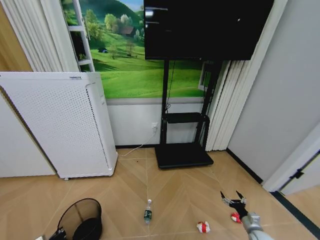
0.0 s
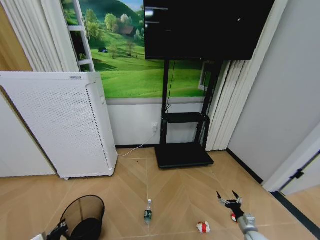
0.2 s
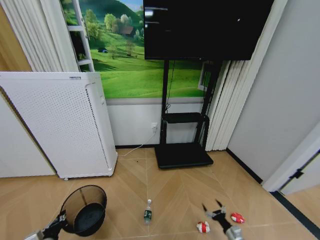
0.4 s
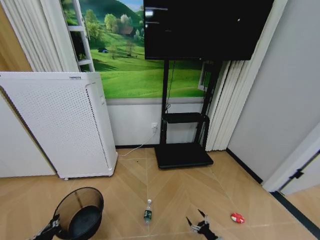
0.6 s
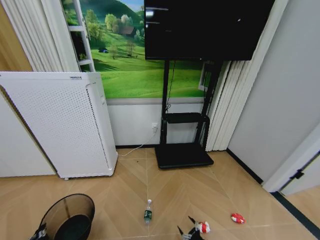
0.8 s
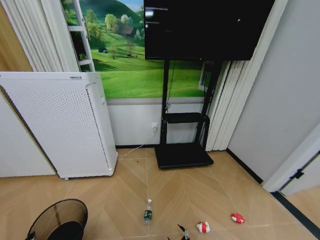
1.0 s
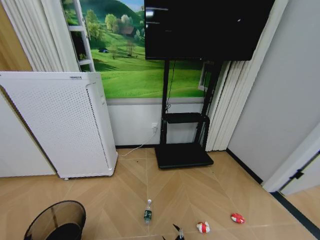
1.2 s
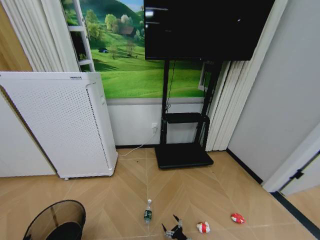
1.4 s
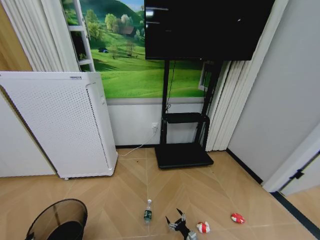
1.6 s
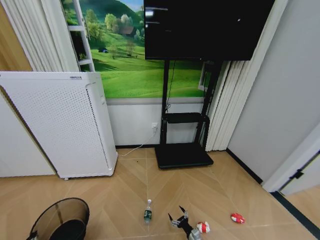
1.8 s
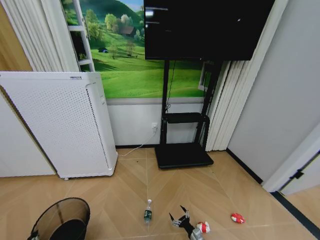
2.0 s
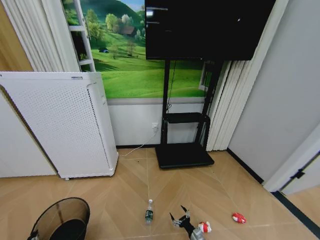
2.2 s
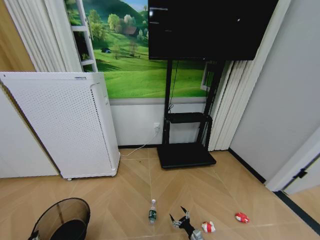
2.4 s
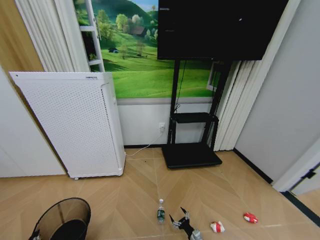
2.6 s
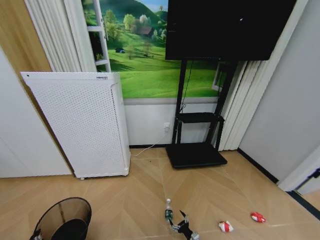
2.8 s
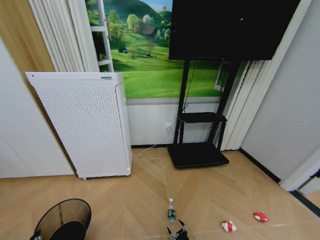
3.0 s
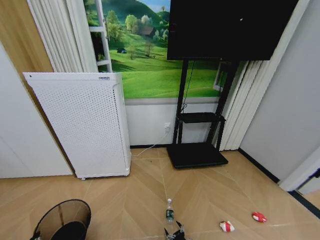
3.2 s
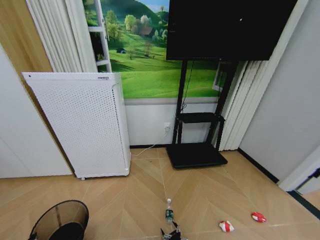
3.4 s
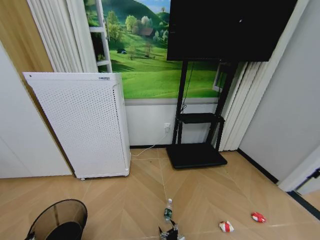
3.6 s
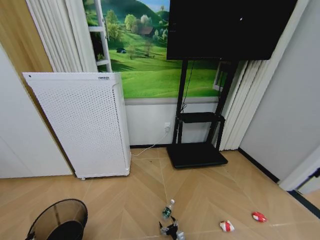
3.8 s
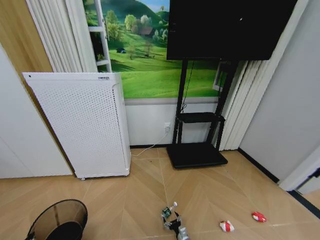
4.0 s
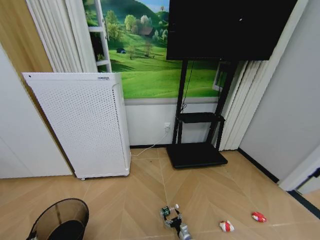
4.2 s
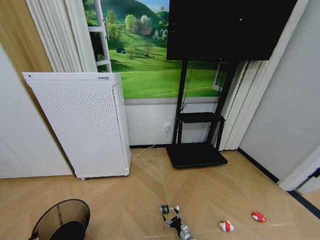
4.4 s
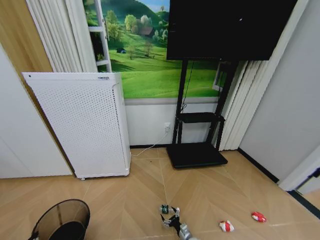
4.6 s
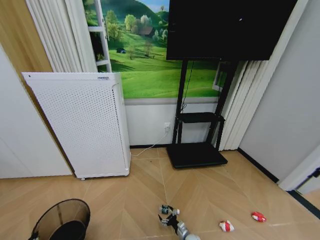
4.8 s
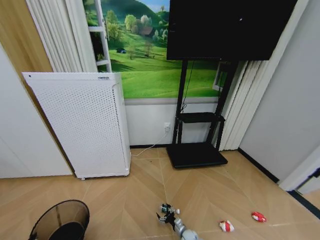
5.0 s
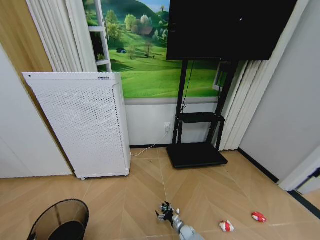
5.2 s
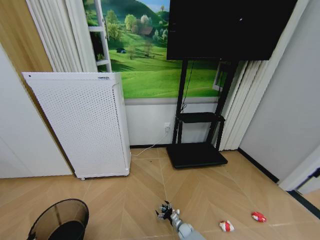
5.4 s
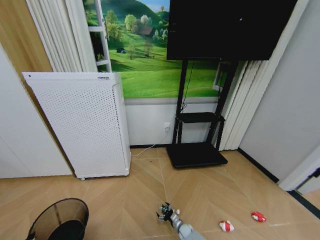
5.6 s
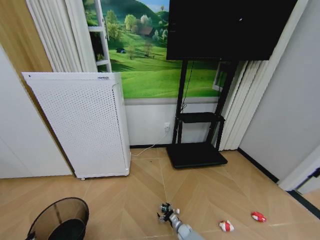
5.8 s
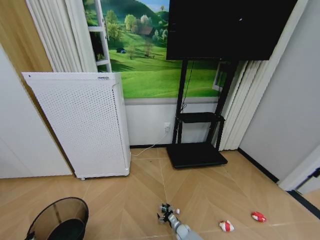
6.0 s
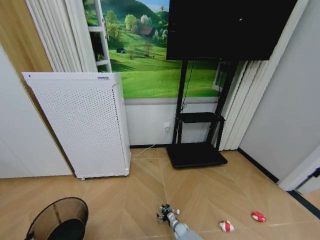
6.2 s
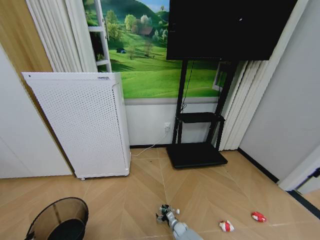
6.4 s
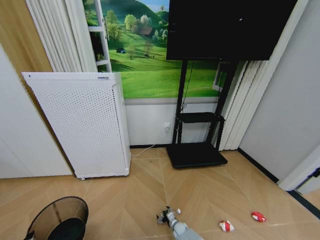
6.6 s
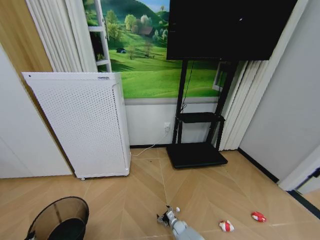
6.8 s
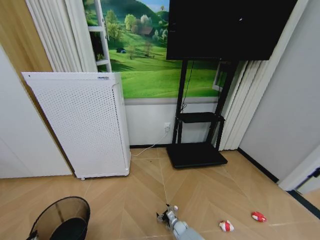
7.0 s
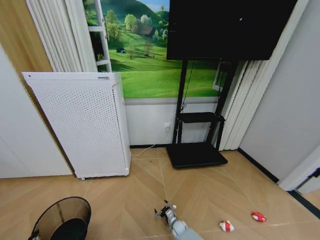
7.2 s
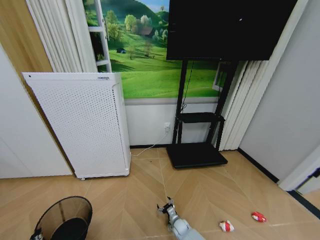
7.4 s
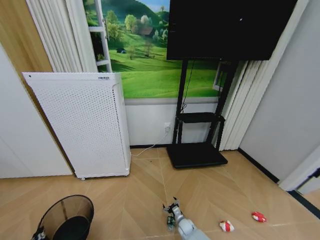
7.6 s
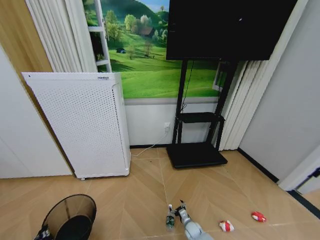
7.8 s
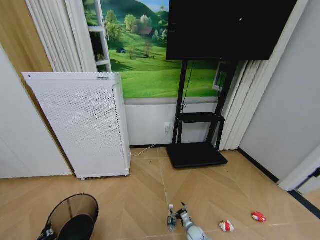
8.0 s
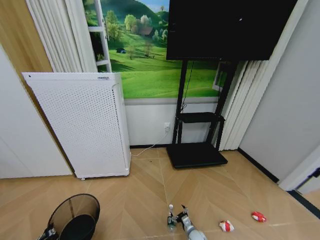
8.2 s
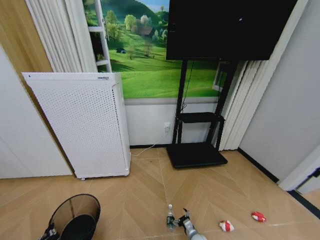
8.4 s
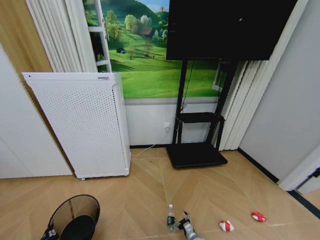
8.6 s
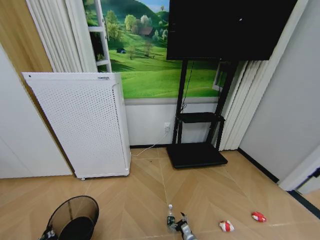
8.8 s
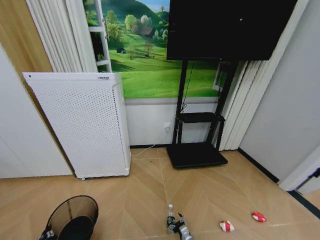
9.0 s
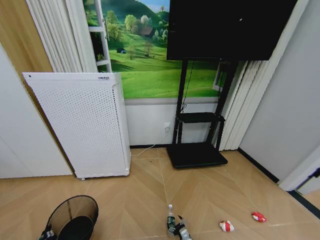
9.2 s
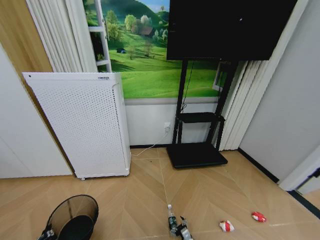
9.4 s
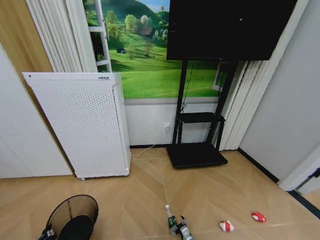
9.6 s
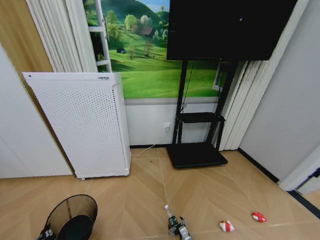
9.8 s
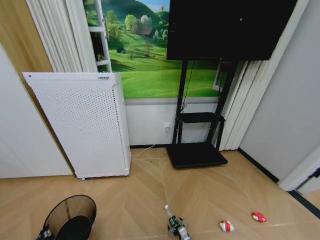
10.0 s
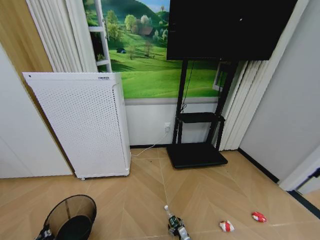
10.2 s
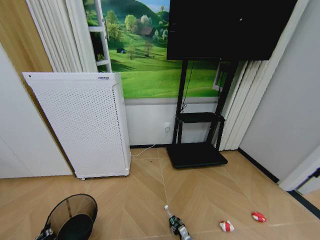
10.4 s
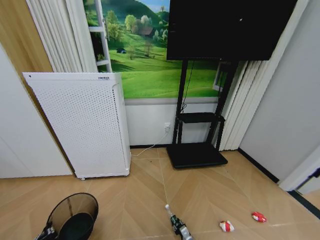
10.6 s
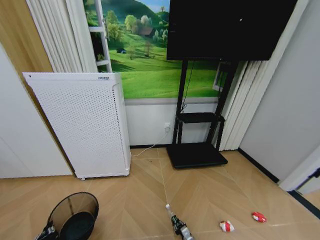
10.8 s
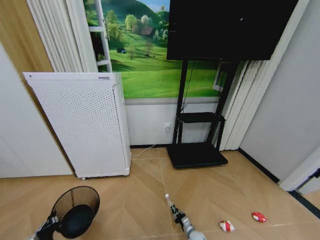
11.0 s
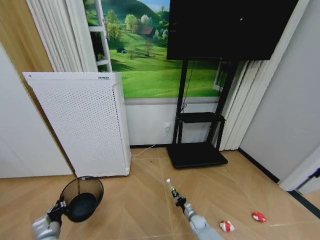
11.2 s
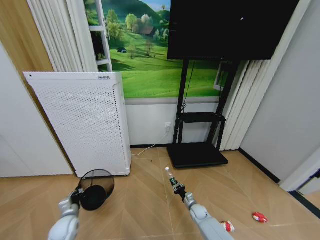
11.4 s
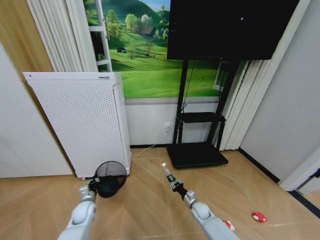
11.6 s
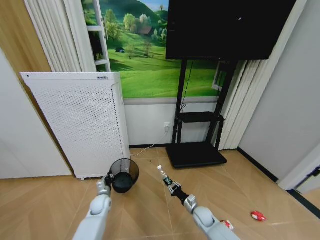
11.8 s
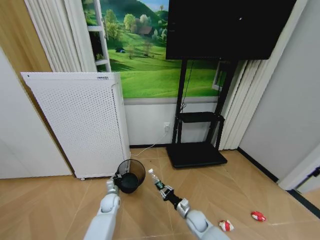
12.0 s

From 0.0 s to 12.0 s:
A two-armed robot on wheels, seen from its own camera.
Task of the whole recording: Pick up the trash bin and place the garbage on the floor into it.
From 0.0 s to 1.6 s: The right gripper goes about 30 cm to the left and downward. The left gripper travels upward and backward by some 15 cm.
From 3.0 s to 4.4 s: The right gripper shifts some 5 cm forward.
From 4.4 s to 6.0 s: The right gripper travels forward by about 5 cm.
From 6.0 s to 7.6 s: The grippers make only small movements.
From 7.6 s to 9.0 s: The right gripper moves backward, roughly 10 cm.
From 10.4 s to 12.0 s: The left gripper travels forward and to the right by roughly 35 cm, while the right gripper is displaced upward and forward by roughly 20 cm, and closes up.

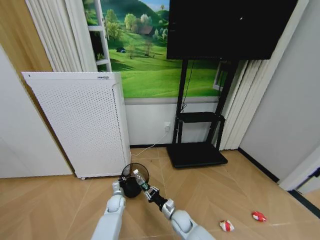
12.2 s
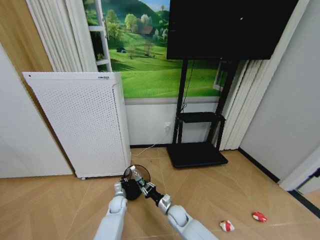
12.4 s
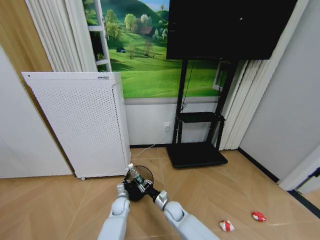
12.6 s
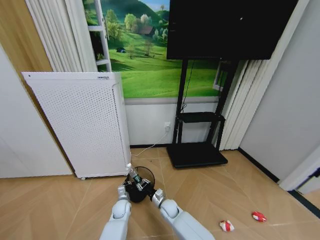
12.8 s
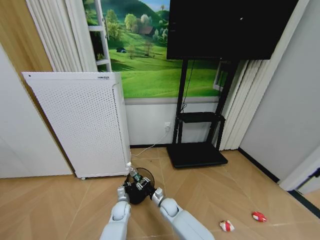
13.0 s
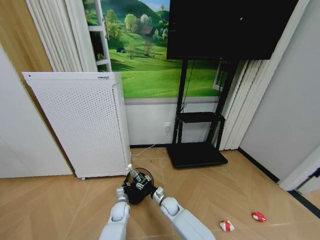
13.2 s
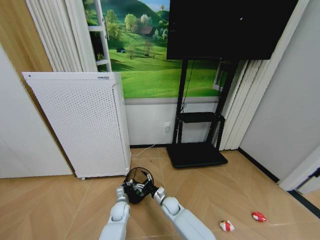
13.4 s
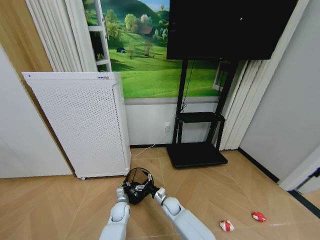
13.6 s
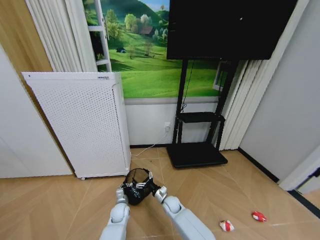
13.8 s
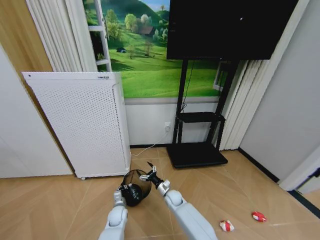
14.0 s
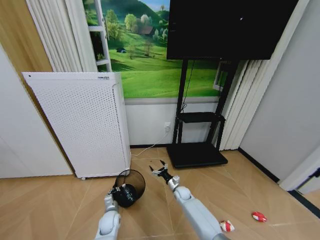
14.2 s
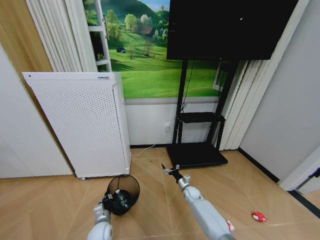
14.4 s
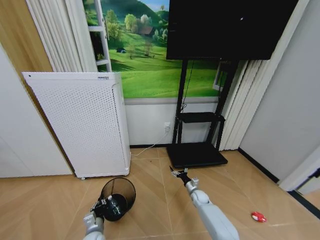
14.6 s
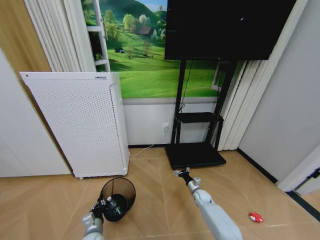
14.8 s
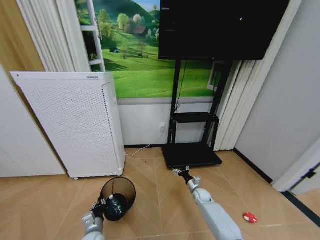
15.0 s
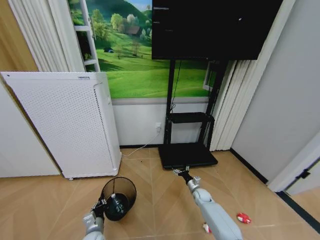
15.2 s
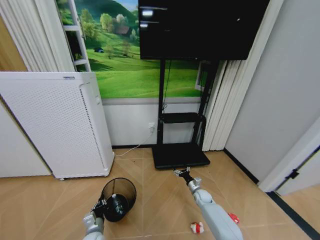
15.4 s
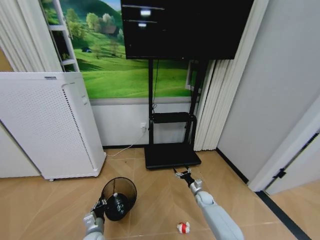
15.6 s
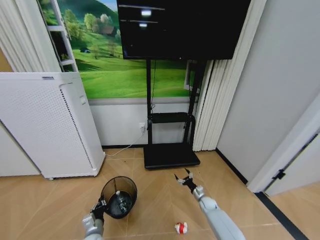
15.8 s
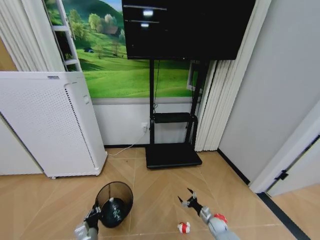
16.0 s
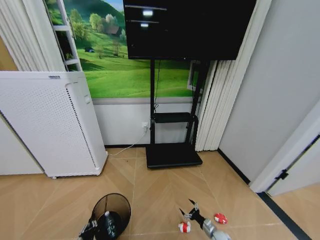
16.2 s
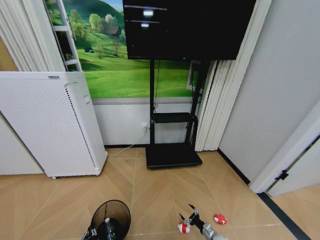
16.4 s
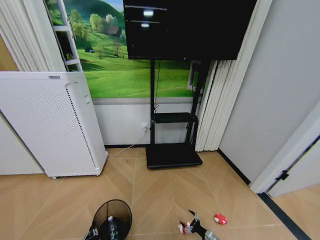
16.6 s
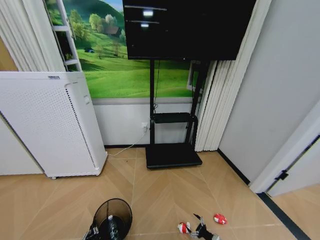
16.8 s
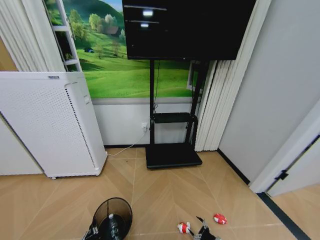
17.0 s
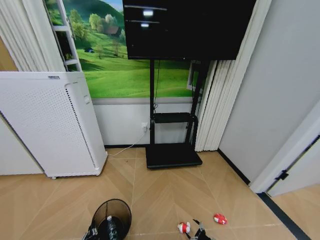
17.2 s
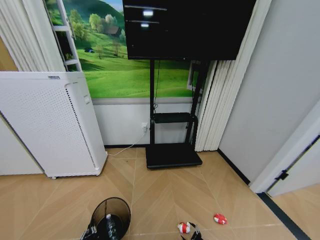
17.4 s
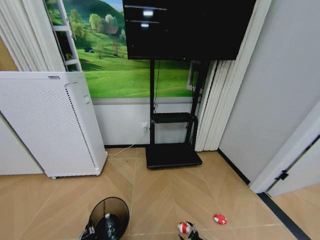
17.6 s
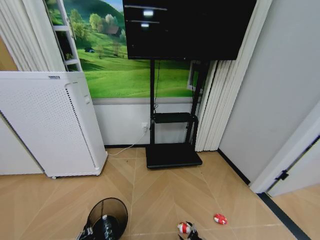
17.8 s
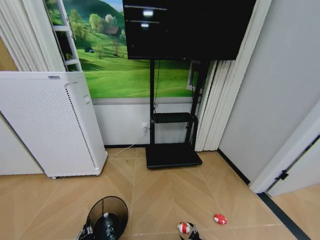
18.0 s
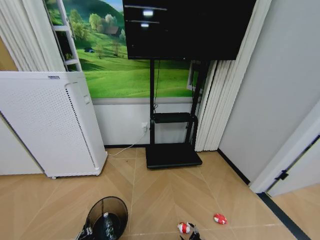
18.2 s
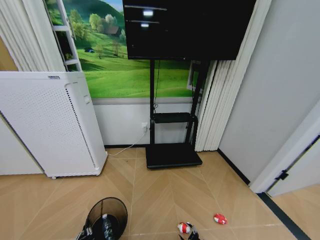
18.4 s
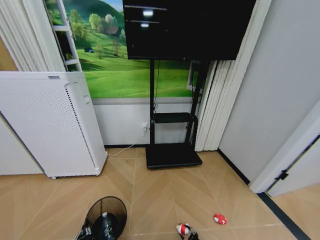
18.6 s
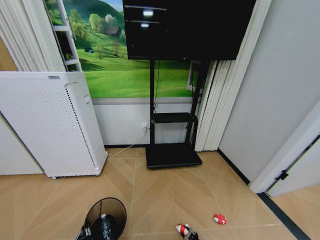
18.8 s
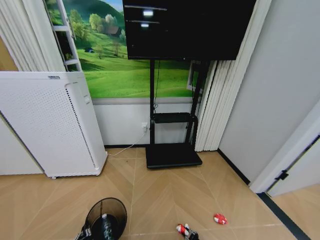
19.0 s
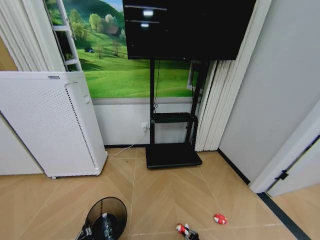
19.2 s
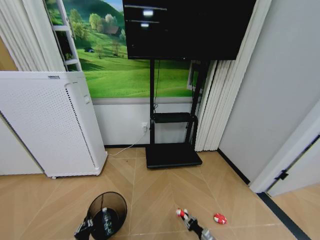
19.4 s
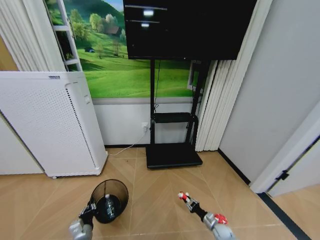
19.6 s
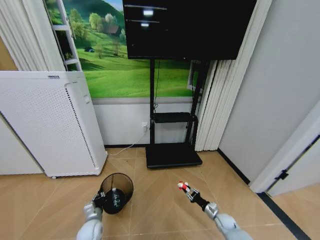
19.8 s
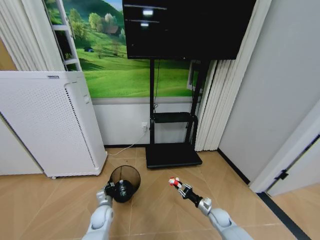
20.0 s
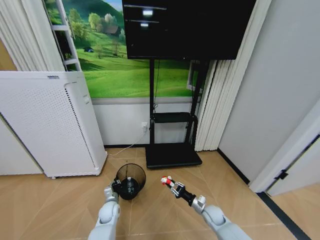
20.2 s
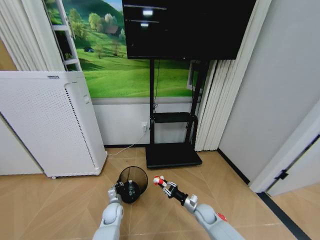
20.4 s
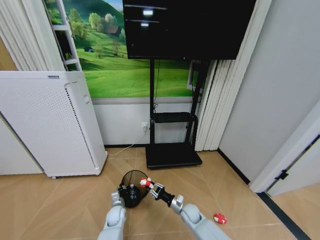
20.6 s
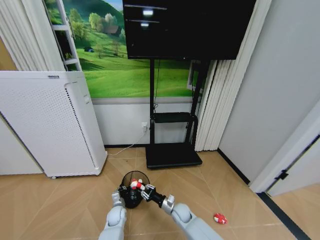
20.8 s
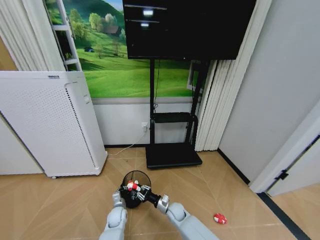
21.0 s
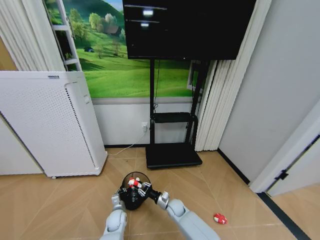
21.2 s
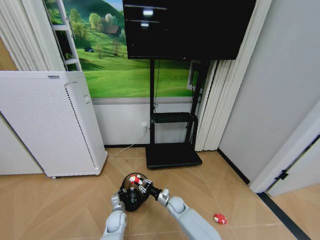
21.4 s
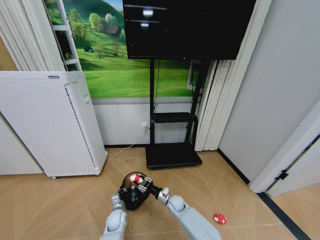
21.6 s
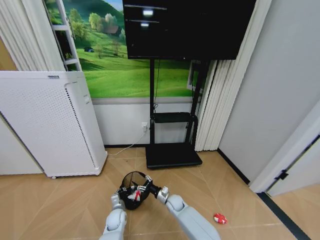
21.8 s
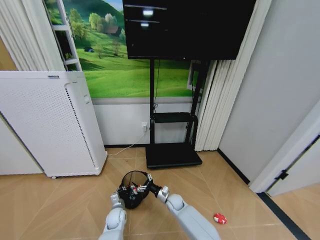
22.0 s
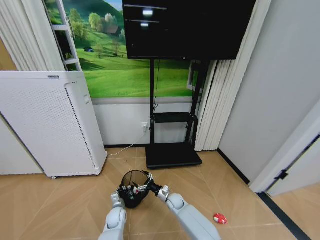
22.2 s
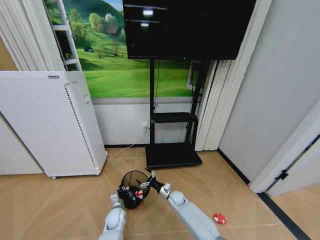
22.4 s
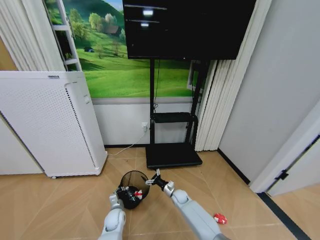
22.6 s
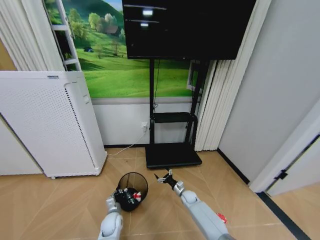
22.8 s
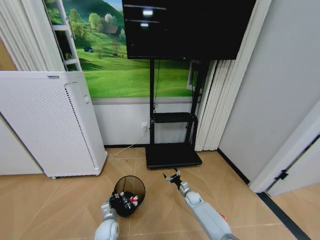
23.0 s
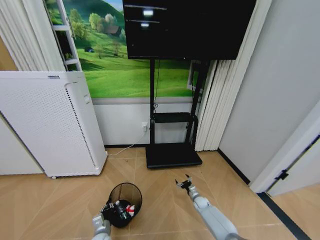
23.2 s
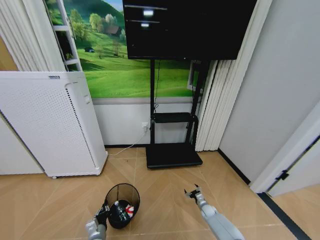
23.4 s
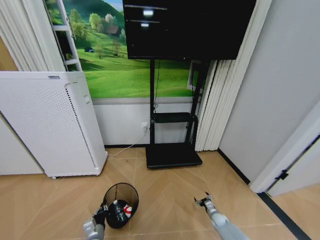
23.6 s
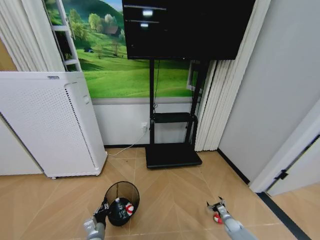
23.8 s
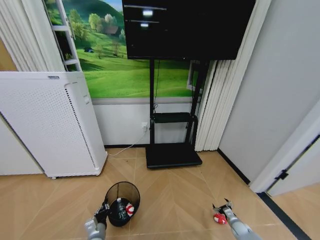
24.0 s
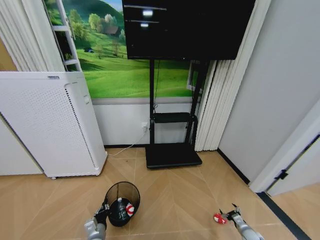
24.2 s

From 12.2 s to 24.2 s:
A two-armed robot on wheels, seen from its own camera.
Task of the whole recording: Pick up the trash bin and place the garbage on the floor into it.
From 12.2 s to 13.8 s: The right gripper heads forward, covering some 10 cm, and opens its fingers. Meanwhile the left gripper shifts by about 5 cm.
From 13.8 s to 15.2 s: The left gripper goes some 15 cm backward, to the left and upward. Meanwhile the right gripper moves to the right, roughly 20 cm.
From 15.2 s to 16.6 s: The right gripper travels backward, downward and to the right by some 30 cm; the left gripper travels backward by some 10 cm.
From 16.6 s to 18.2 s: The right gripper shifts by roughly 5 cm.
From 18.2 s to 19.8 s: The right gripper is displaced forward and upward by some 20 cm, and closes its fingers, while the left gripper travels forward by roughly 15 cm.
From 19.8 s to 21.2 s: The right gripper shifts roughly 30 cm to the left. Meanwhile the left gripper shifts roughly 15 cm to the right, forward and downward.
From 21.2 s to 22.6 s: The right gripper moves forward and to the right, about 10 cm, and opens its fingers.
From 22.6 s to 24.2 s: The left gripper moves backward and to the left, approximately 15 cm, while the right gripper is displaced to the right and backward by approximately 40 cm.
